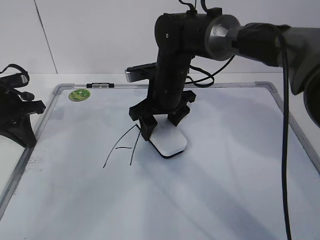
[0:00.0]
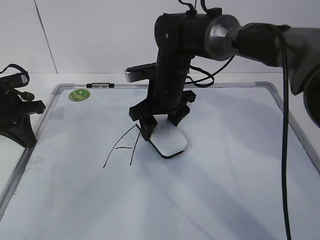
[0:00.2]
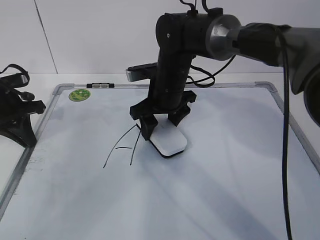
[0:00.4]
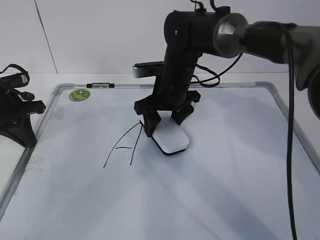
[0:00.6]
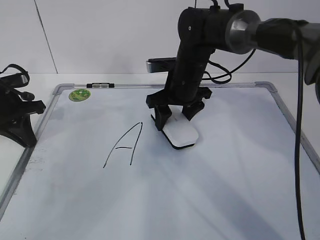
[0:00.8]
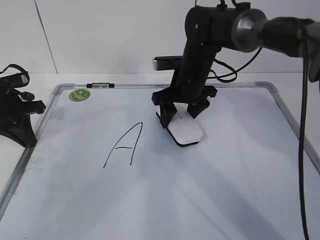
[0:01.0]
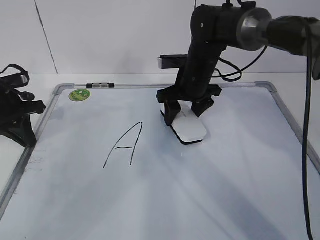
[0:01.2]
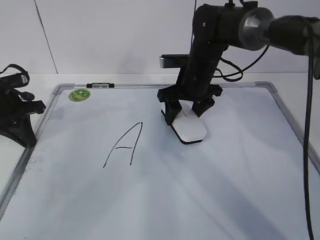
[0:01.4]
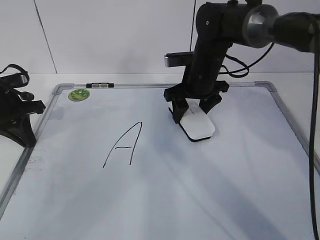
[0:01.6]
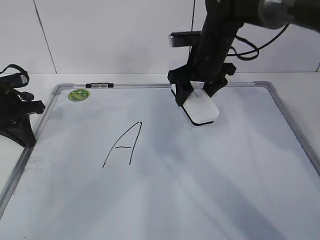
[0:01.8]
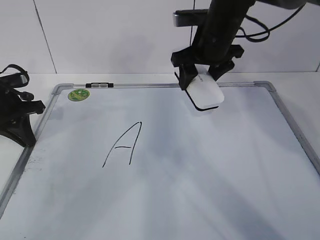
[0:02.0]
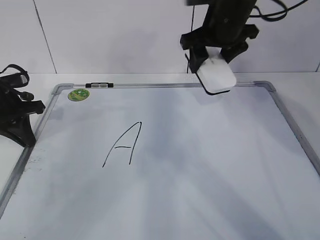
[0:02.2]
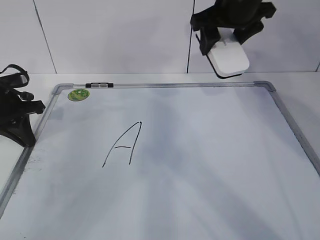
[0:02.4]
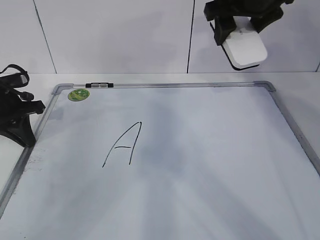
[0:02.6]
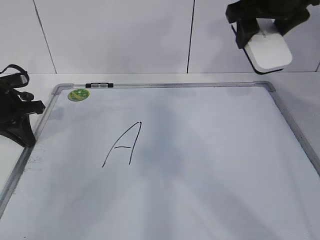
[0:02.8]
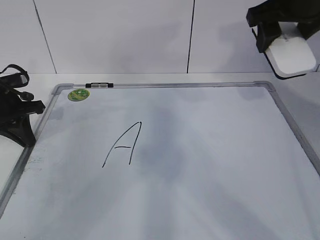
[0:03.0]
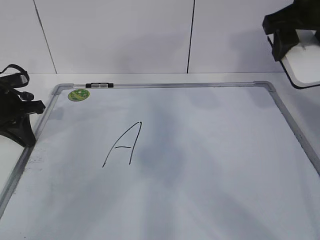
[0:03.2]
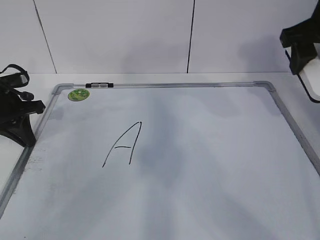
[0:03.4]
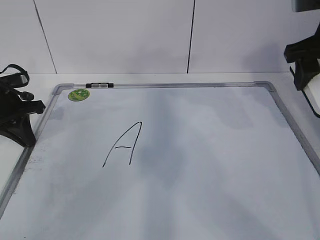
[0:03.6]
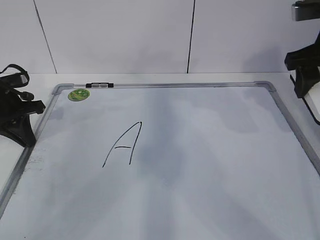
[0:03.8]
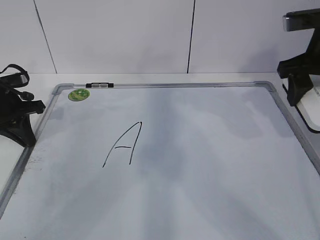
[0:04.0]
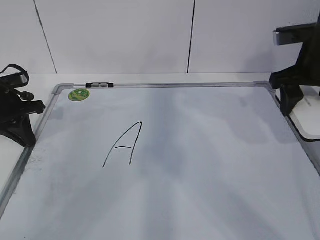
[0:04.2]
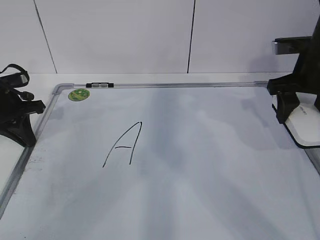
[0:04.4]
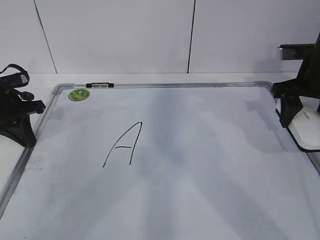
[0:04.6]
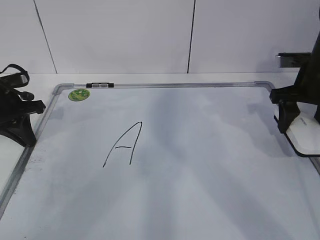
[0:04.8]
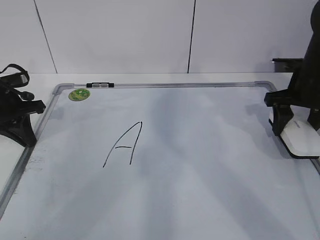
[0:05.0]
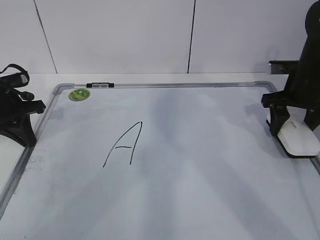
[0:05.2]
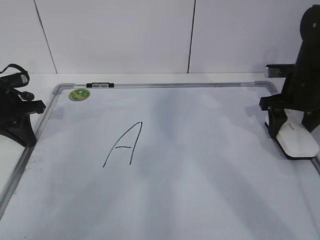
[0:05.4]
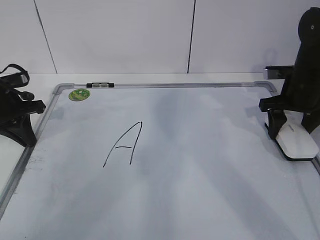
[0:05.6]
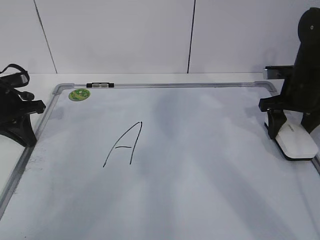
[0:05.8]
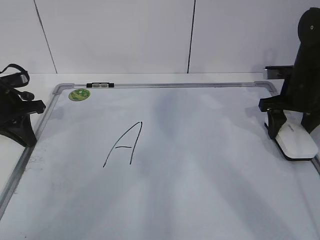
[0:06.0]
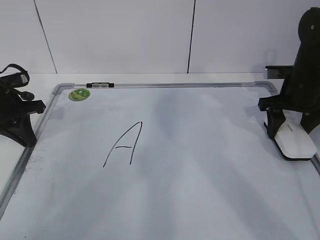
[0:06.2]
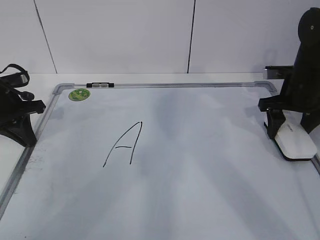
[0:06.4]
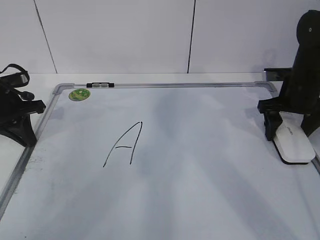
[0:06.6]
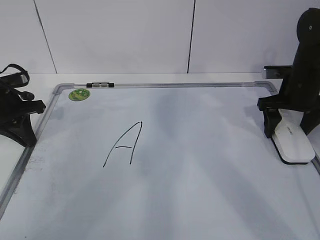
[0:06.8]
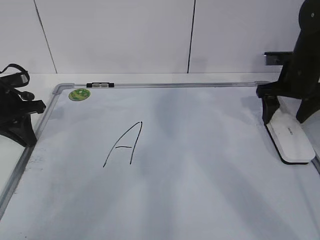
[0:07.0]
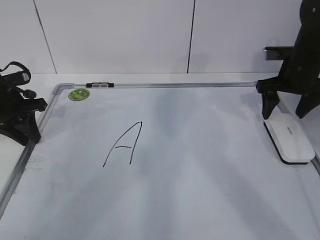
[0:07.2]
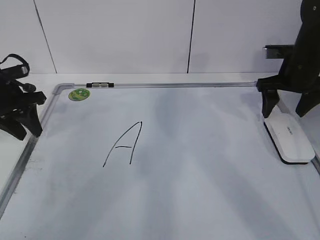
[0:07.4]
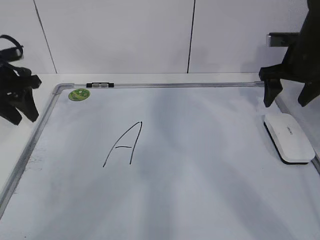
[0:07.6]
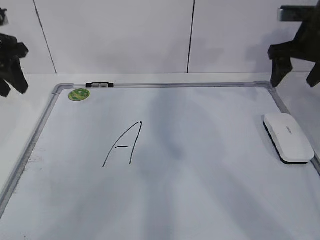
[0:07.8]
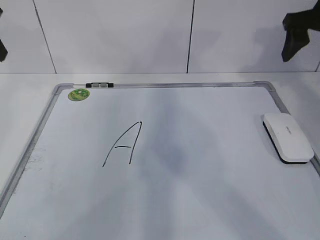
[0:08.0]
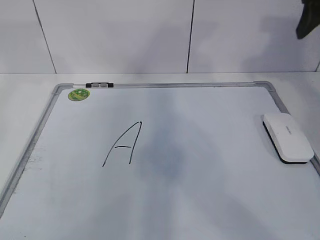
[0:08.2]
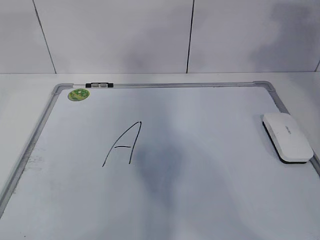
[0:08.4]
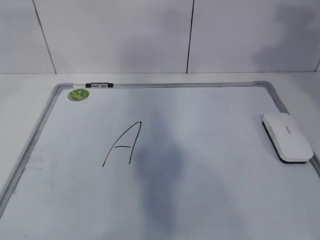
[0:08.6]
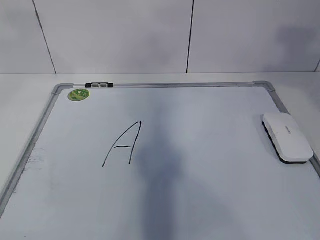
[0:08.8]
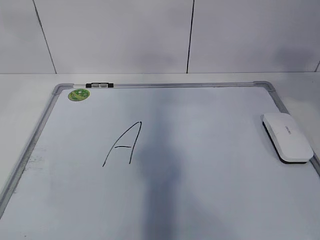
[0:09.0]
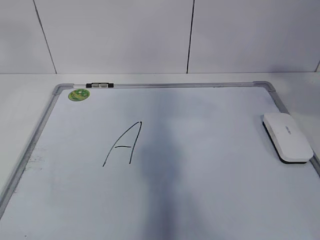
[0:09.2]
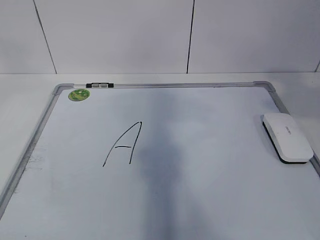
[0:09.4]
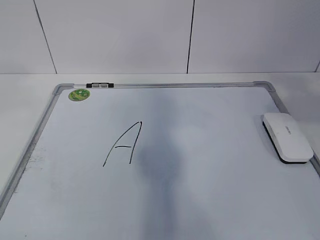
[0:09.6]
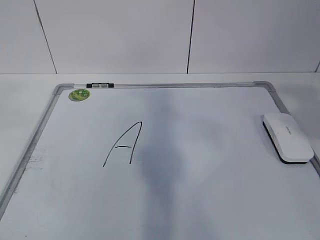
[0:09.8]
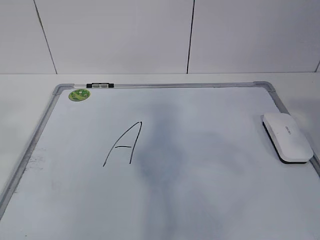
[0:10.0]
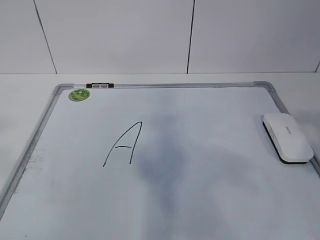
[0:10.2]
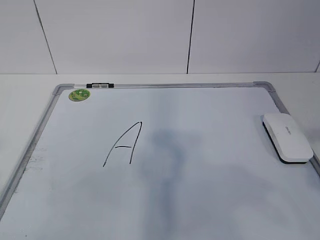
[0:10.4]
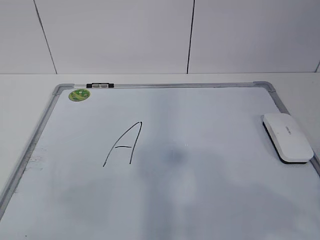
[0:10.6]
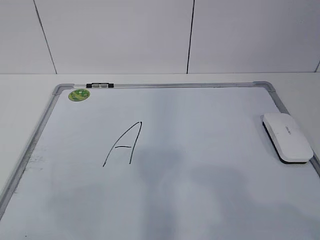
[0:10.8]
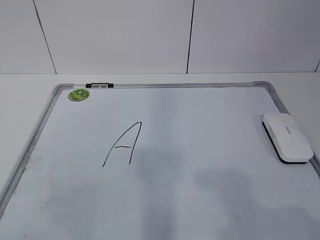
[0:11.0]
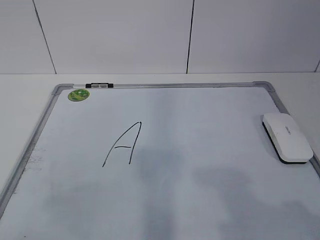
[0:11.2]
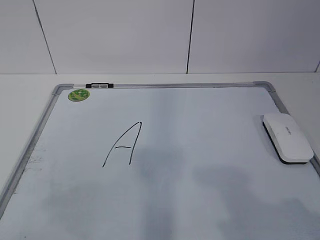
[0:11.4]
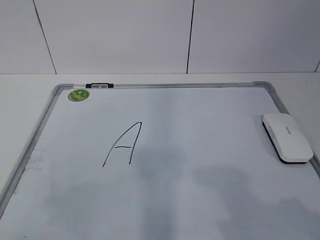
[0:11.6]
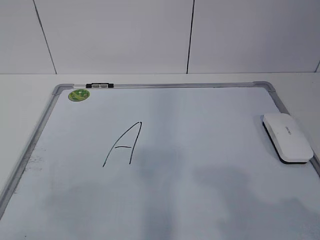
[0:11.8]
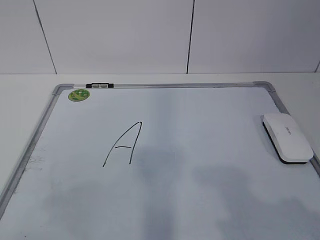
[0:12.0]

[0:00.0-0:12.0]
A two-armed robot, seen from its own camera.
Task of the whole recording: pick up the eraser on the blackboard and erase the letter "a".
0:00.0 to 0:01.6: The right gripper goes about 5 cm to the right.
0:01.6 to 0:03.0: The right gripper is displaced upward, to the right and backward by approximately 20 cm.
0:03.0 to 0:04.4: The right gripper travels downward and to the right by approximately 10 cm.
0:04.4 to 0:06.0: The right gripper is displaced downward by roughly 5 cm.
0:06.0 to 0:07.6: The grippers both shift upward by some 5 cm. The left gripper opens. Meanwhile the right gripper opens up.
0:07.6 to 0:09.0: The left gripper is displaced upward and backward by roughly 35 cm. The right gripper moves backward and upward, some 30 cm, and closes.
0:09.0 to 0:10.4: Both grippers travel together backward and downward, some 20 cm.
0:10.4 to 0:12.0: The right gripper shifts roughly 5 cm downward.

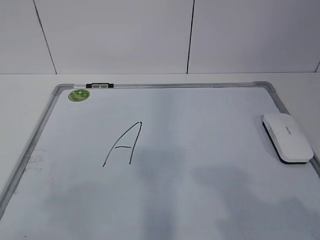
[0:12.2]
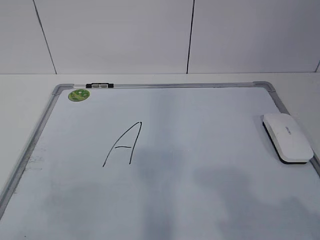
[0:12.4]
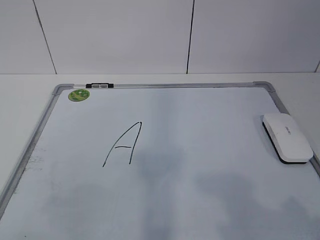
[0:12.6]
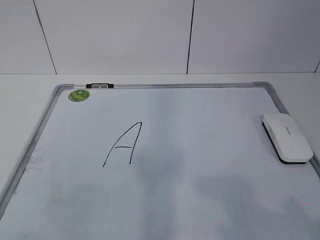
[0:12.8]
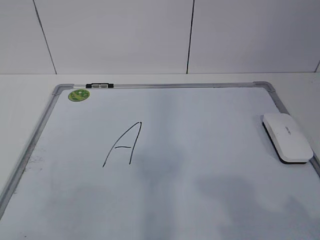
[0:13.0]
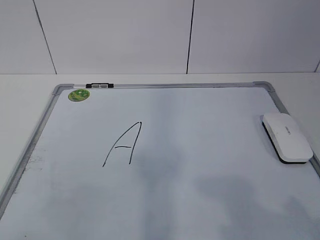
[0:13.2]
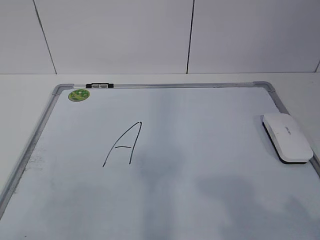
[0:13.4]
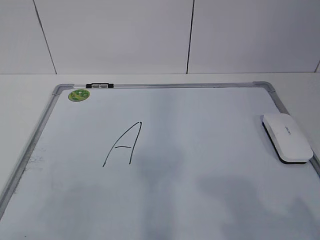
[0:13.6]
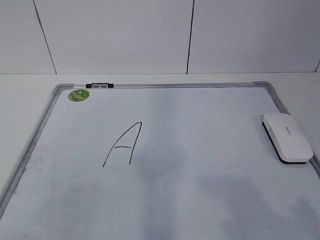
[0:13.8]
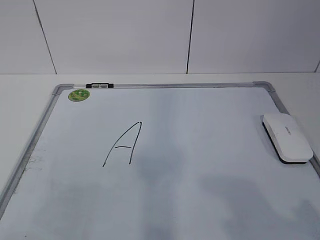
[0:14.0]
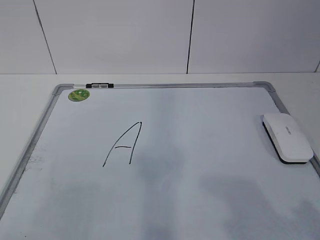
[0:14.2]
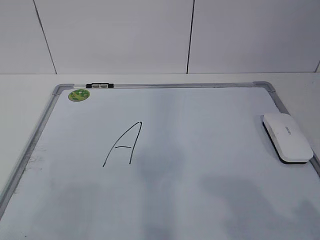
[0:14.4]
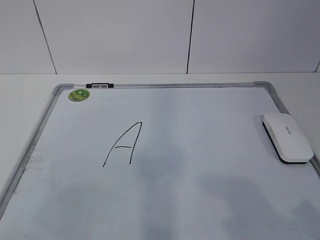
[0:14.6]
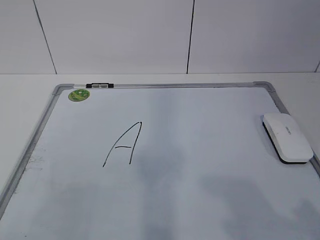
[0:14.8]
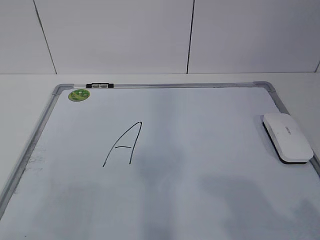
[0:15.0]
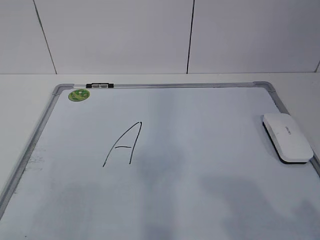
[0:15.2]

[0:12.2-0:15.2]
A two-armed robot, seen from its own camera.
Task of the whole recording: pick up the eraser on the blackboard and erase the letter "a".
0:13.8 to 0:15.2: The two grippers keep their place.
